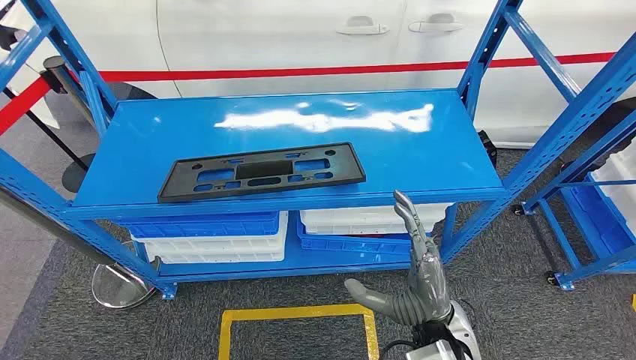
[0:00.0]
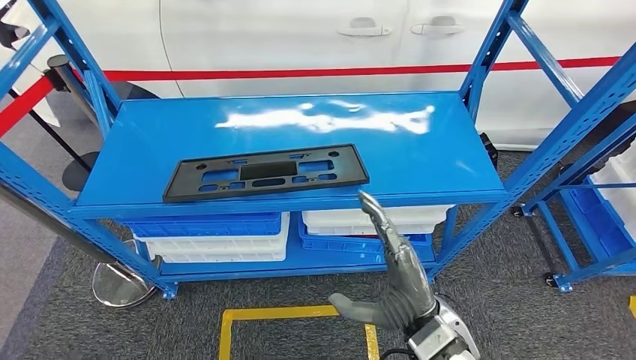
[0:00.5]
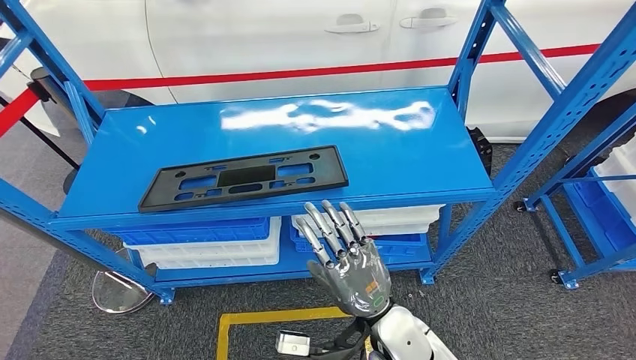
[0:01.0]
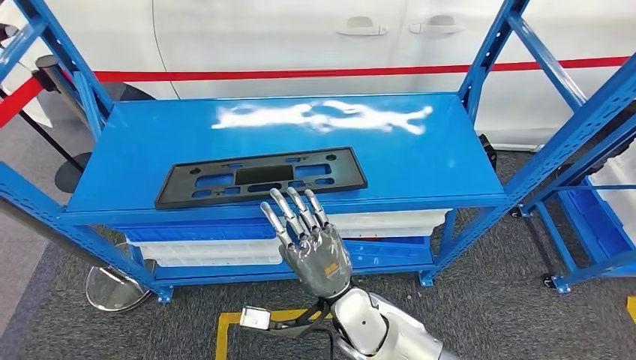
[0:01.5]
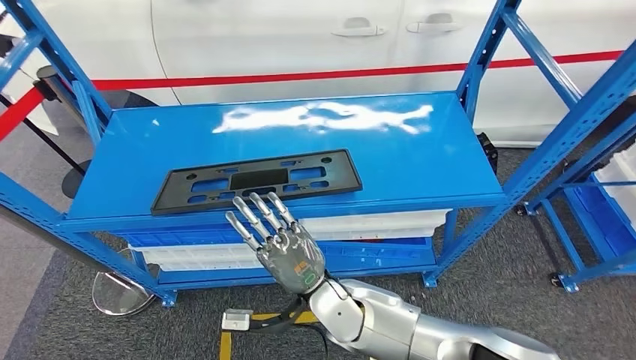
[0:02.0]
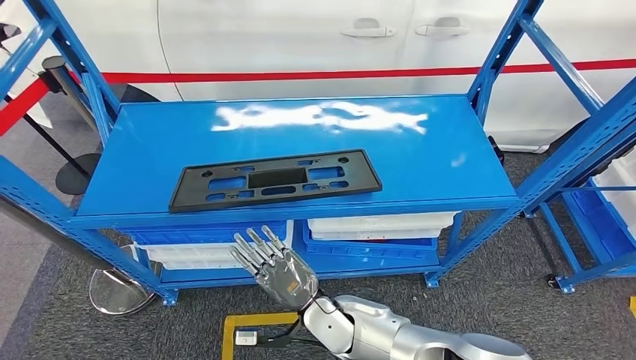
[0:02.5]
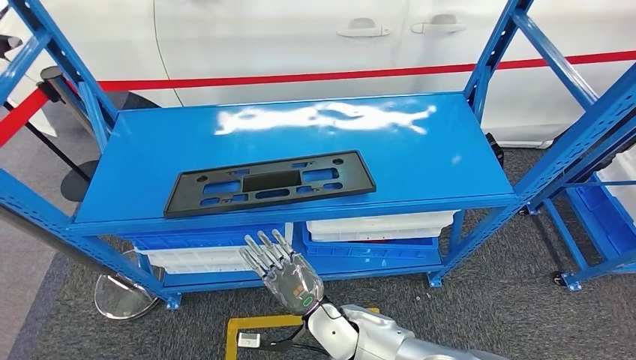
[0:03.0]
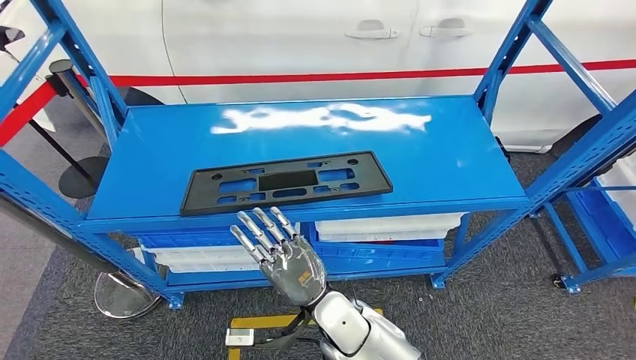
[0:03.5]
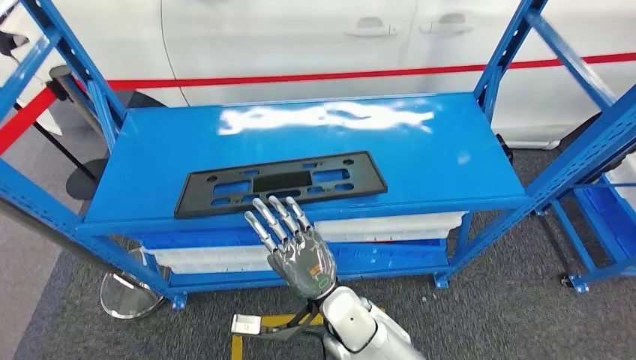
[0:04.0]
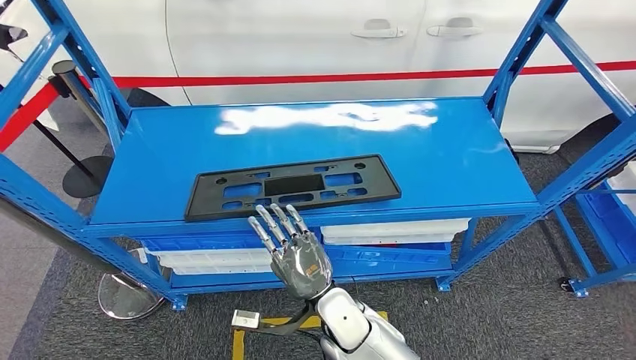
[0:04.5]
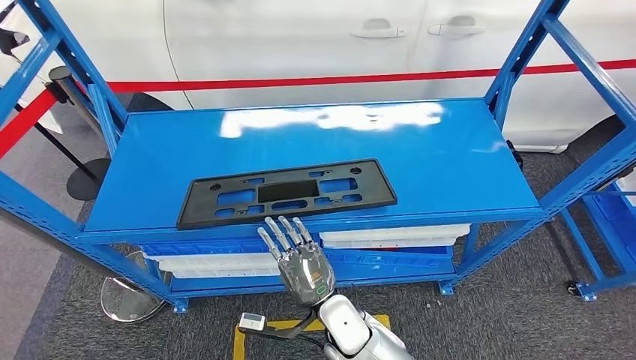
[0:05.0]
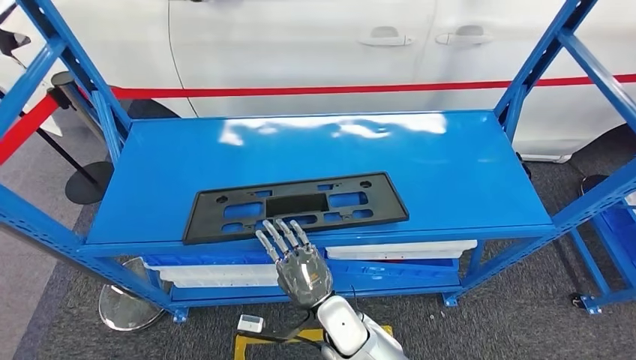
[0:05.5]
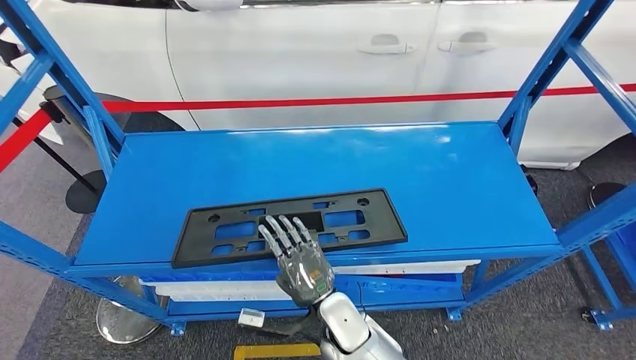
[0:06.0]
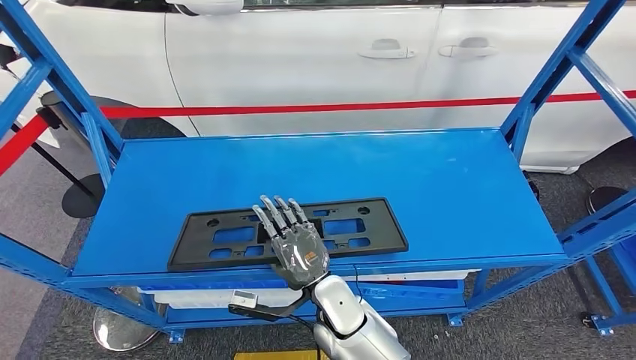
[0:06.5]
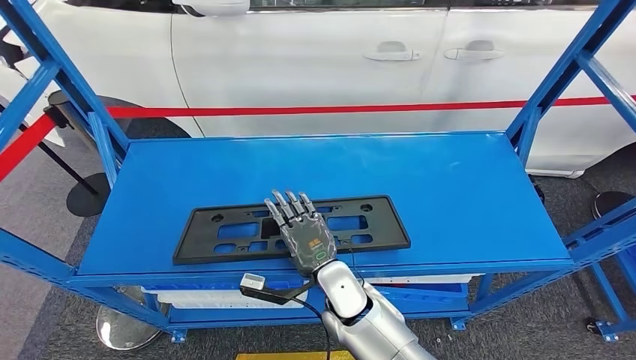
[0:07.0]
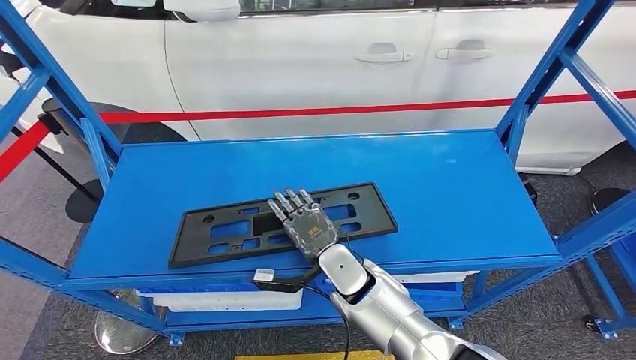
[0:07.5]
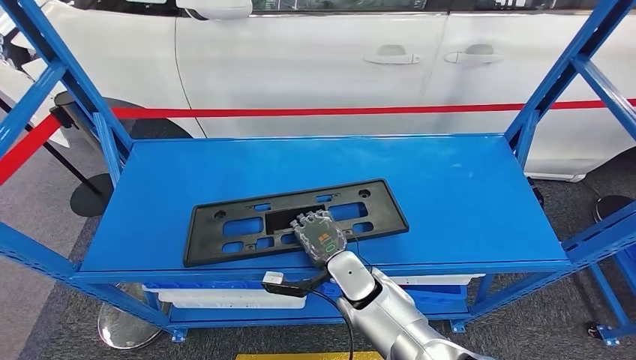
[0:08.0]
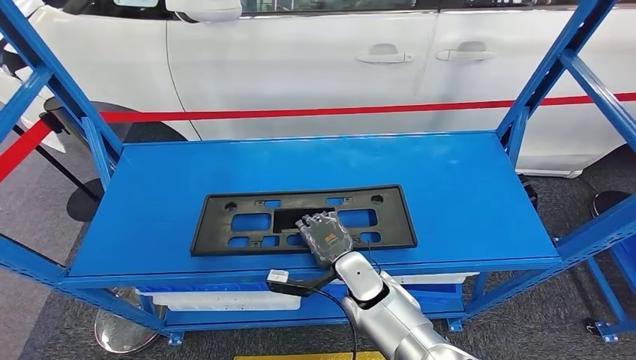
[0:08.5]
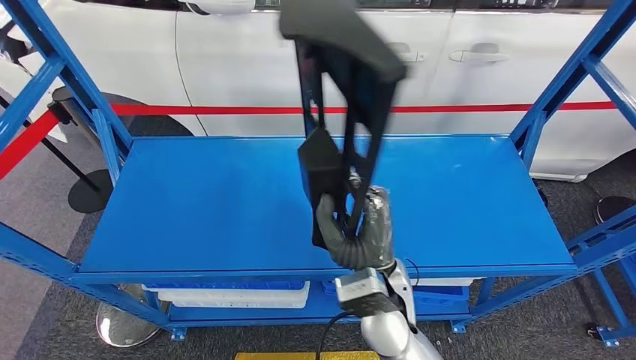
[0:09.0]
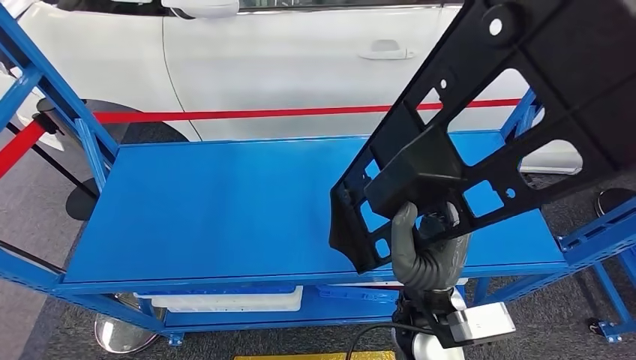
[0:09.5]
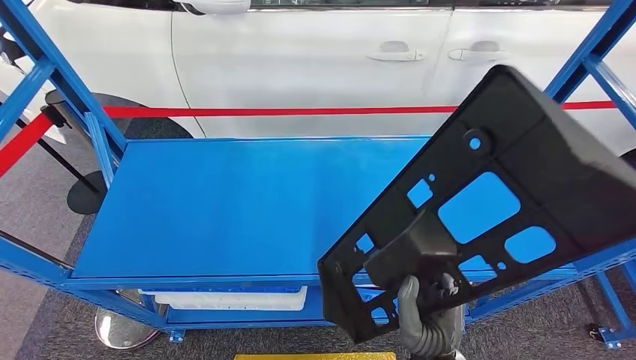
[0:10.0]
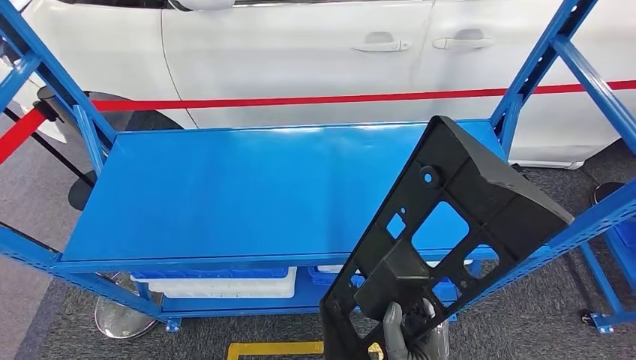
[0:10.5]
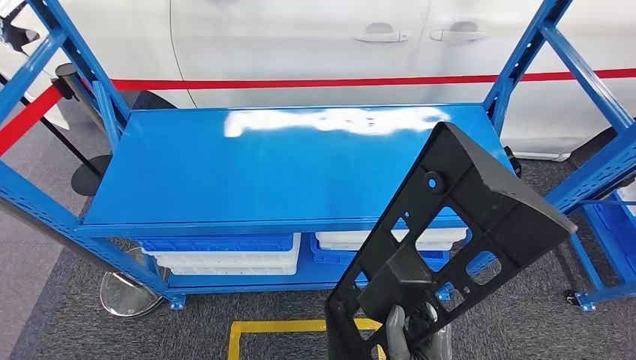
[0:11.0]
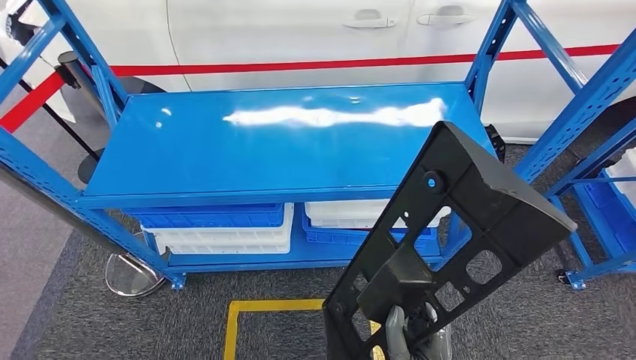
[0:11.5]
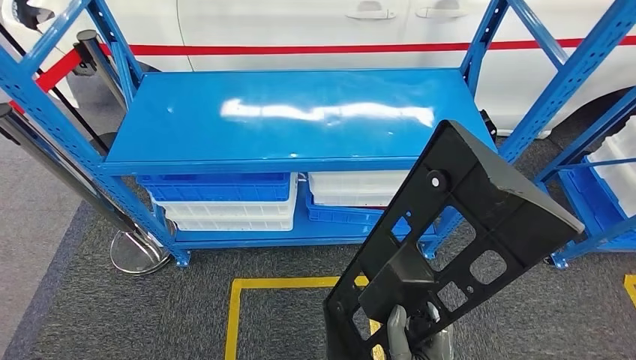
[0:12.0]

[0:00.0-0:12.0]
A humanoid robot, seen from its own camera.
Step, 0:00.0 to 0:09.5: Pick up the large material from the shelf.

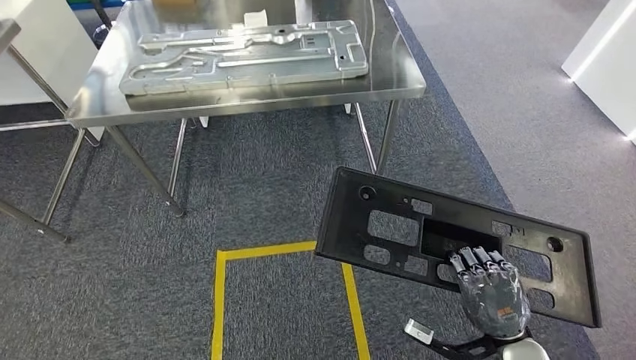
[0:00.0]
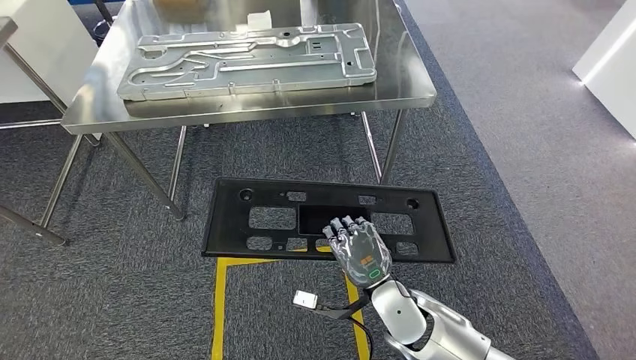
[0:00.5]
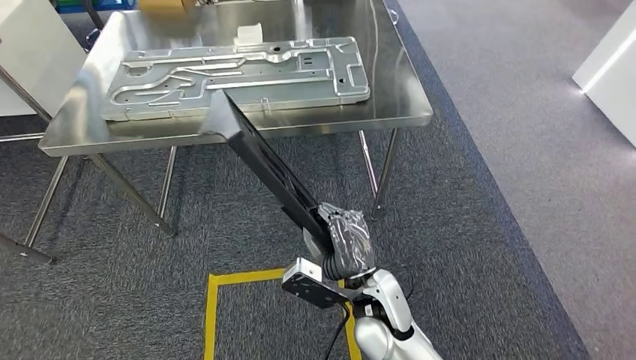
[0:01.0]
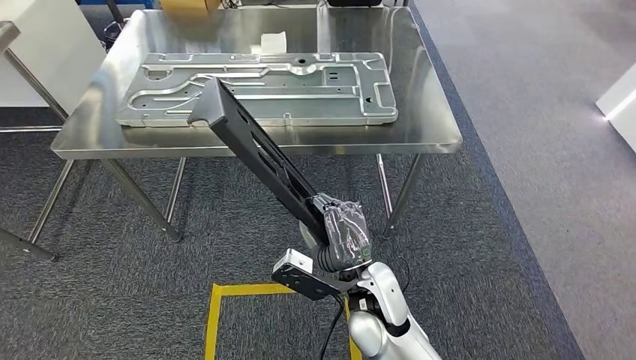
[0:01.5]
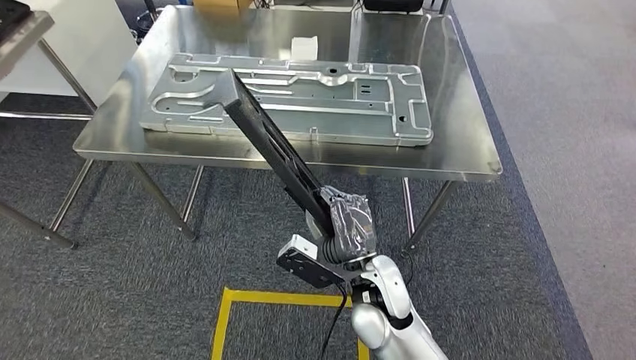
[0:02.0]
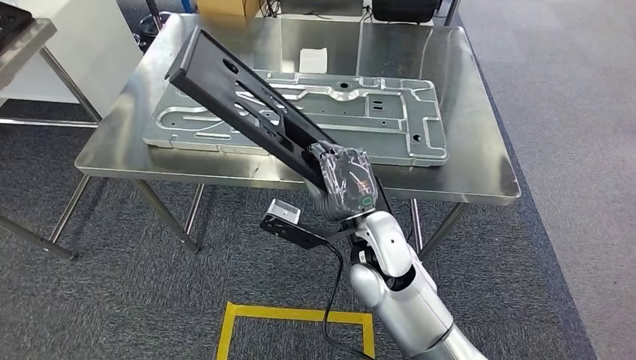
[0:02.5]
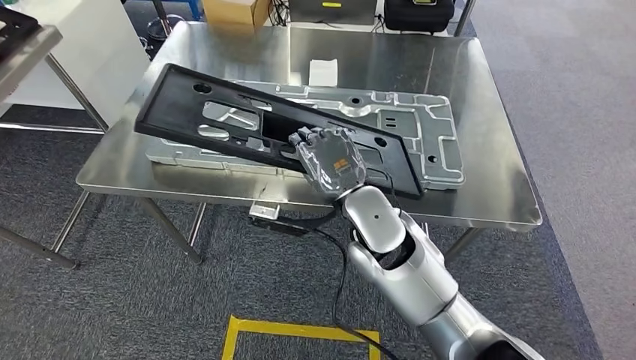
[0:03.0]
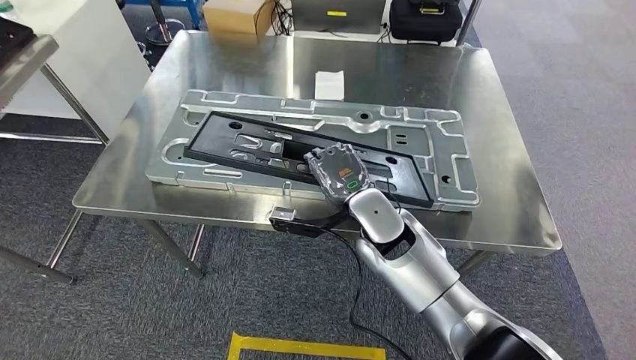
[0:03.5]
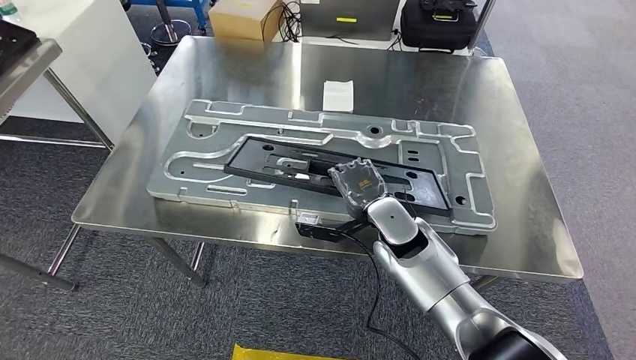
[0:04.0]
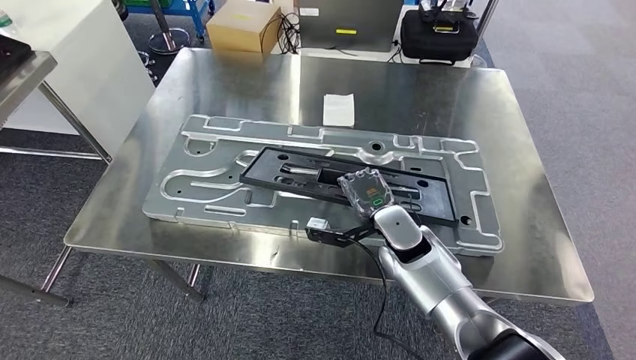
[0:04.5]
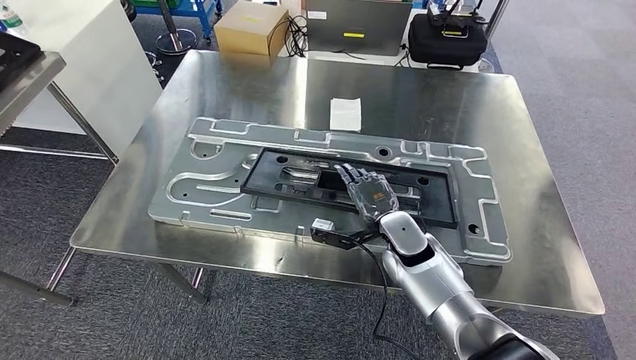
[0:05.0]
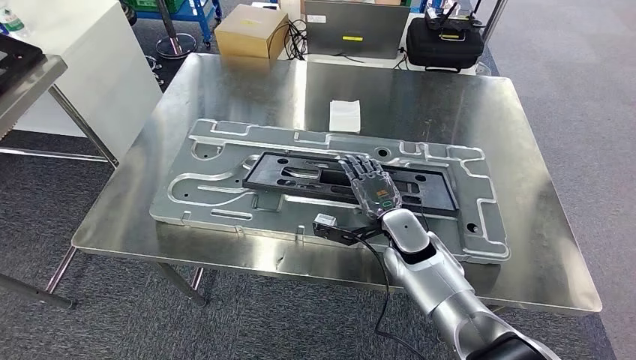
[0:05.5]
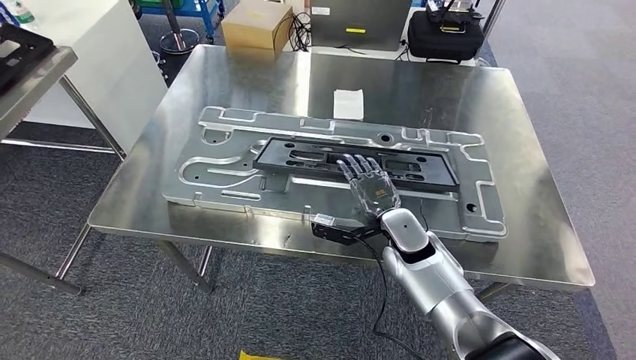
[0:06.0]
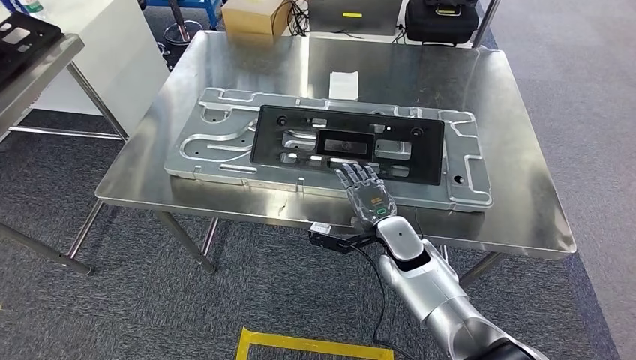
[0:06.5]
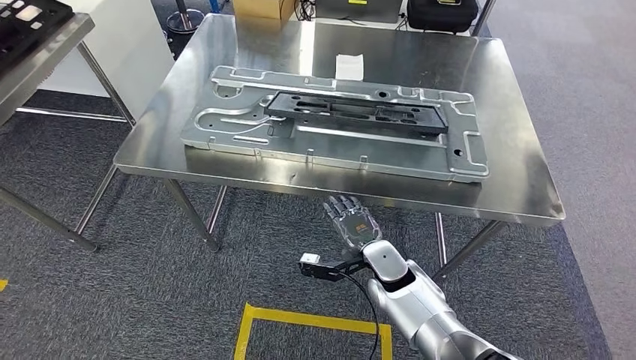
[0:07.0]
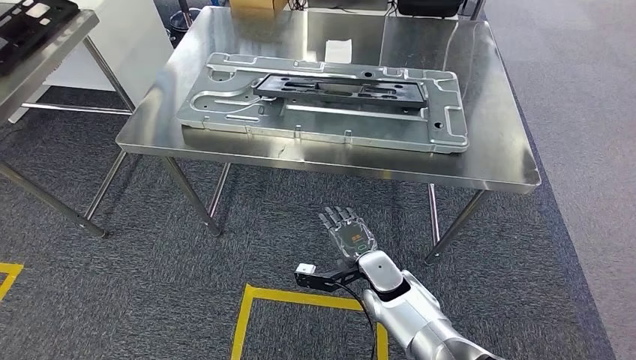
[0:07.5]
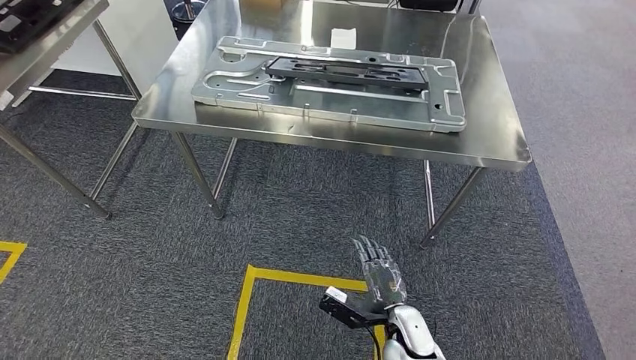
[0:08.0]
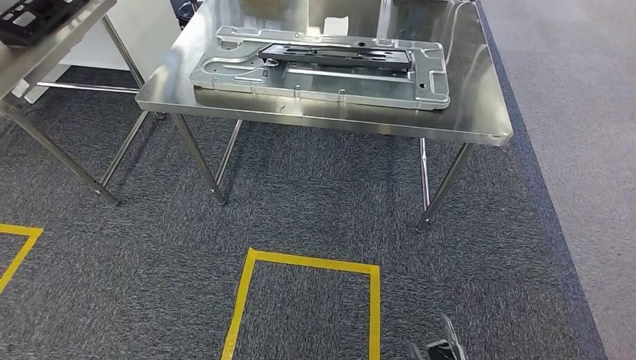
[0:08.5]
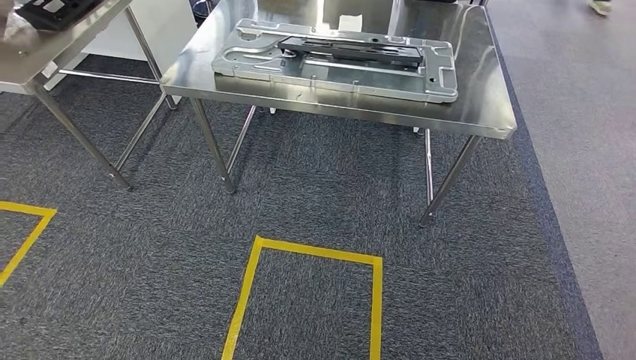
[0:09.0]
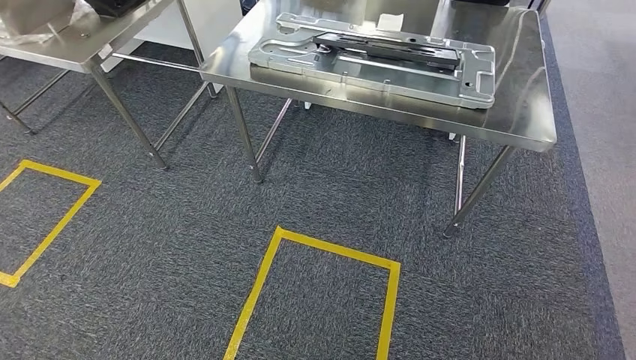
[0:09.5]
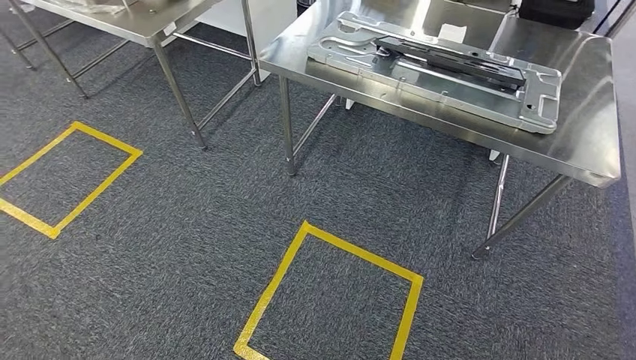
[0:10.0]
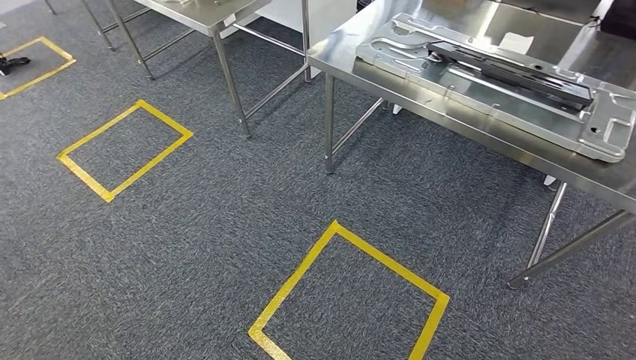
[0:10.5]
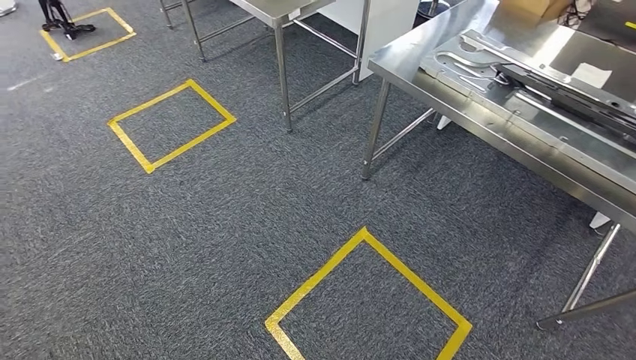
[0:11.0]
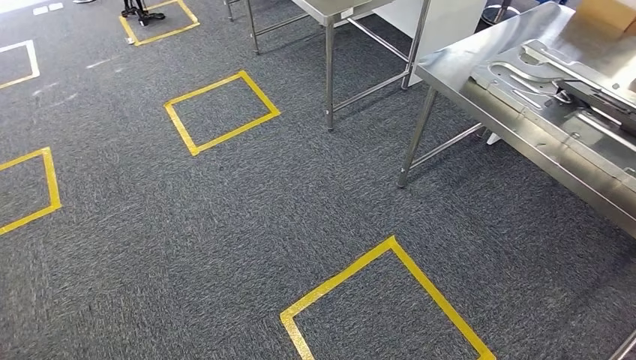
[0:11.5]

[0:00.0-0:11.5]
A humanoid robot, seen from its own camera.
Step, 0:00.0 to 0:02.0: Move the large material to the workbench.
Step, 0:02.5 to 0:09.0: Insert the large material into the corresponding slot on the workbench.
